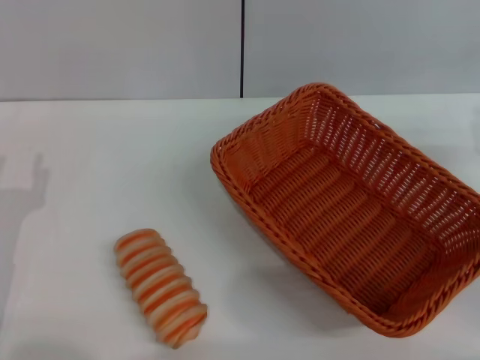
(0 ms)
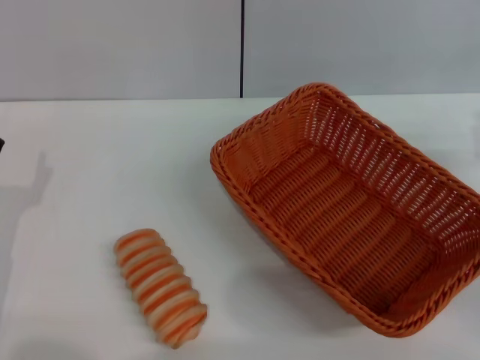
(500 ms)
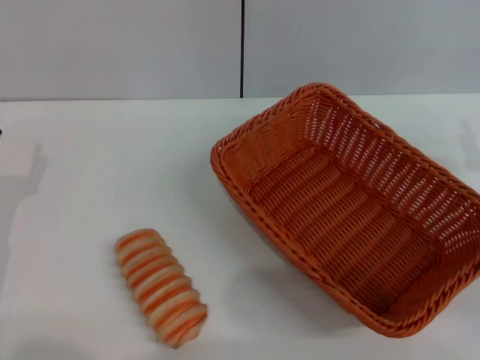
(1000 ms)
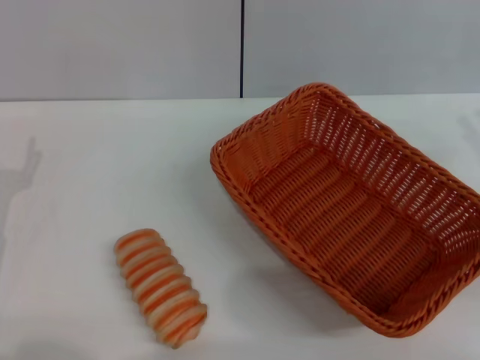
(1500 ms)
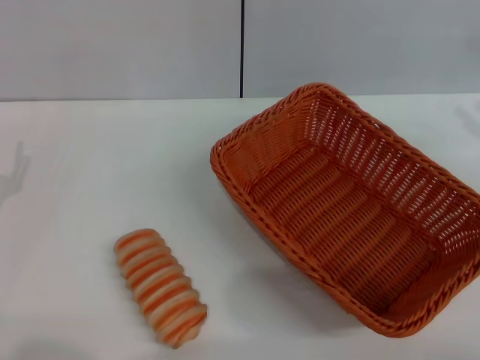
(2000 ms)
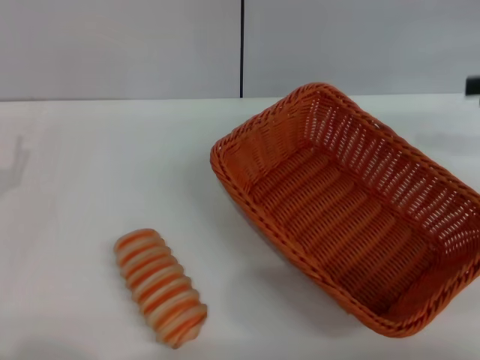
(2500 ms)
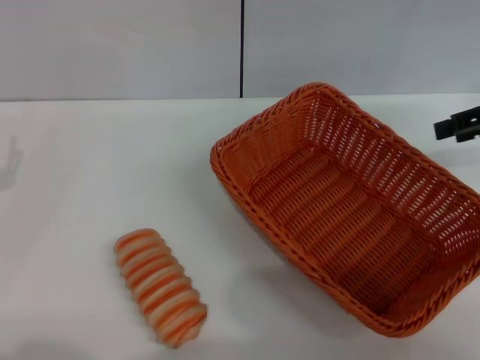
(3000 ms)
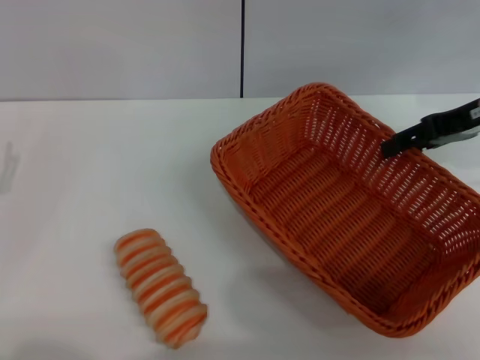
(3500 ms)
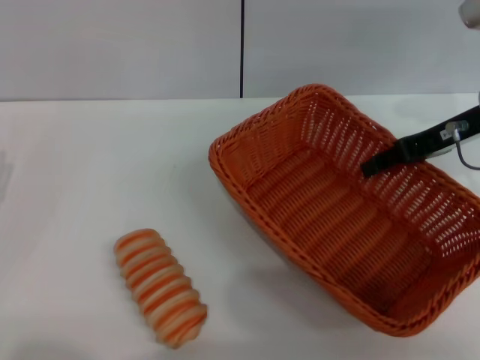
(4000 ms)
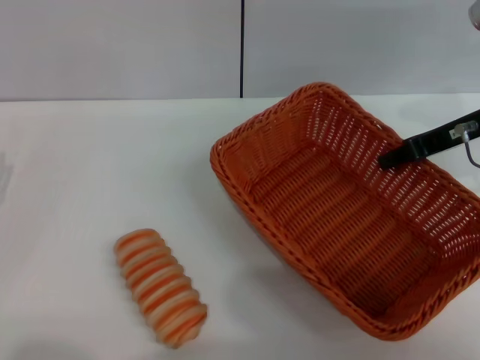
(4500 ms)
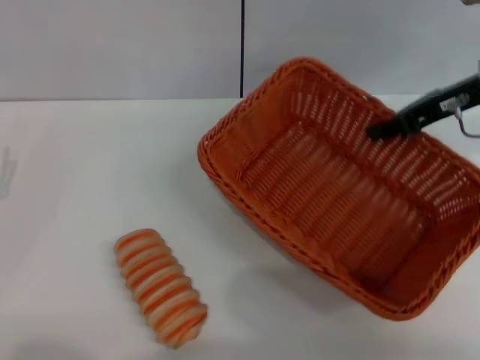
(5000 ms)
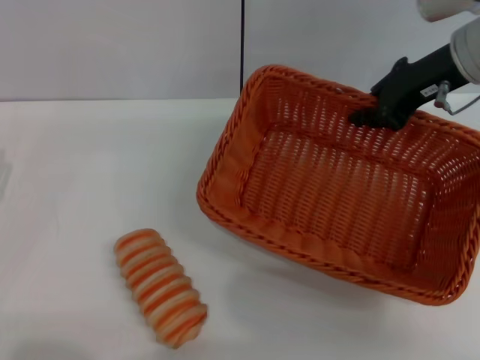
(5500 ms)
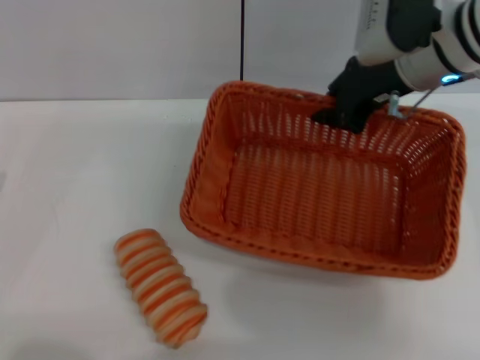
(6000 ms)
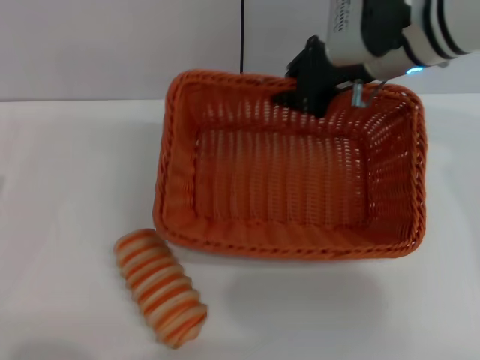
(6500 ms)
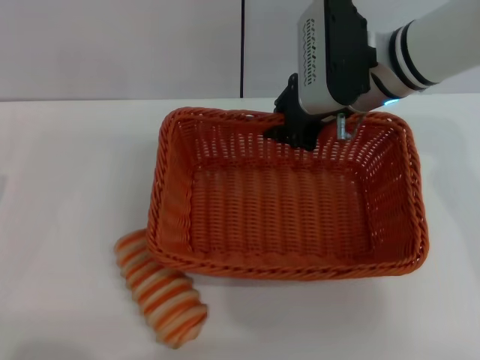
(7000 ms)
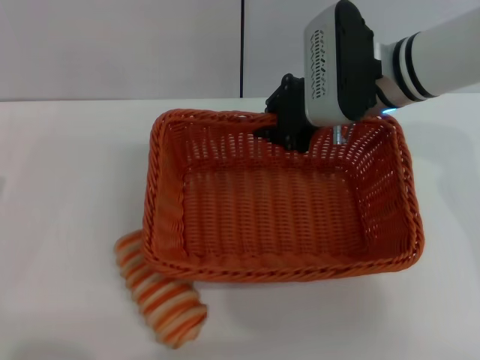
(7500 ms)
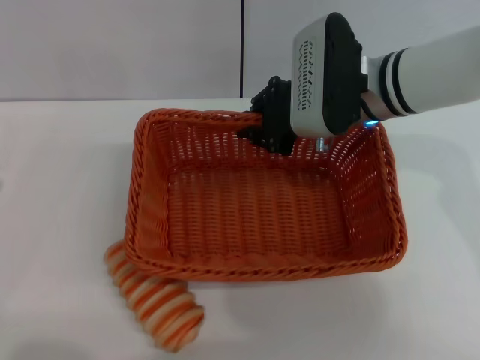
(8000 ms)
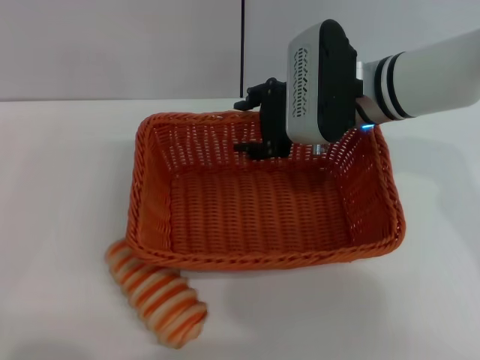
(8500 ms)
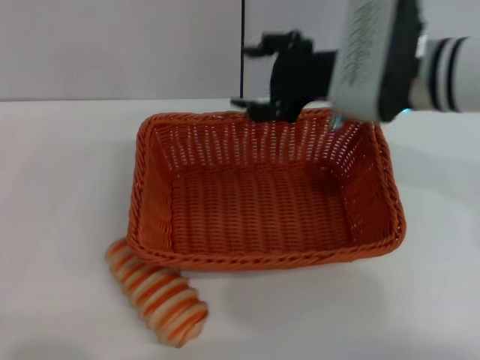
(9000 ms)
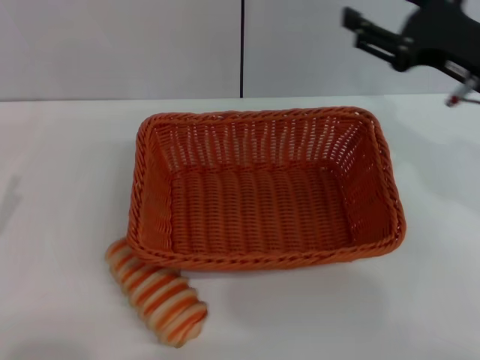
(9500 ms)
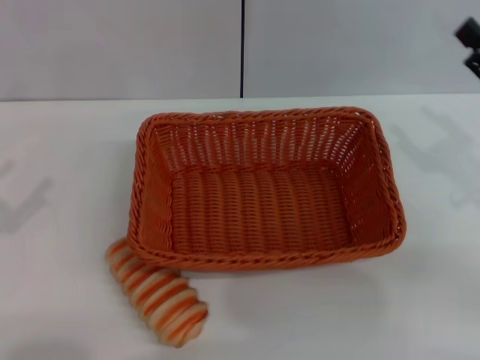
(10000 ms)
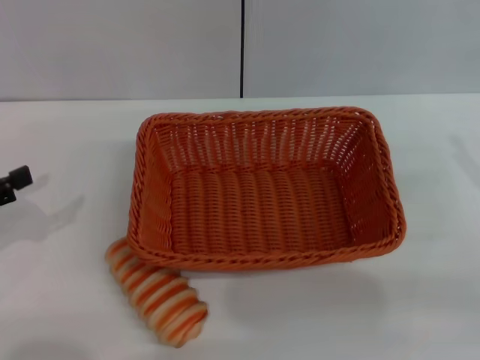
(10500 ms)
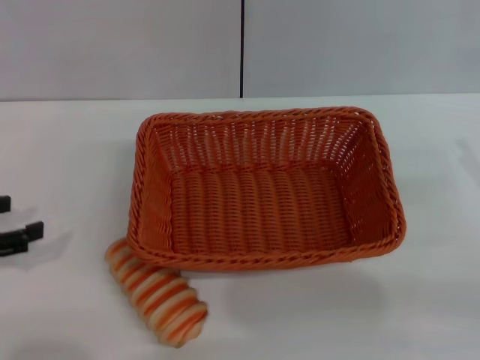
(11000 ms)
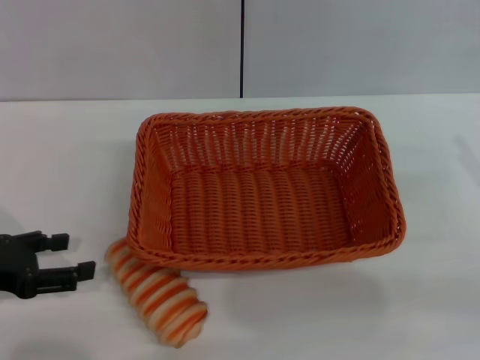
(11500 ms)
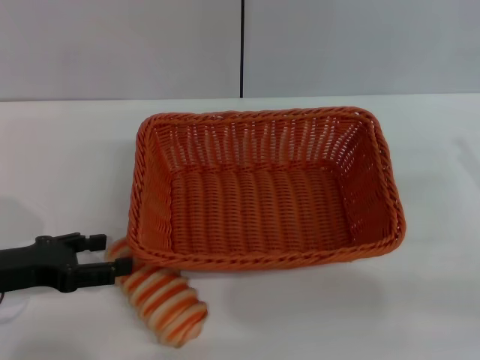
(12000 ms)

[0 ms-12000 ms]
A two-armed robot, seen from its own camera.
Step, 0 ms to 5000 ms: Pick up the light basket with the right gripper.
Step, 5500 ms to 8500 ms: Place the light basket in the center of view with the right gripper.
2000 ms to 4000 ms: The right gripper travels to the left and forward by some 15 cm.
4000 ms to 6000 ms: The right gripper goes about 10 cm to the left, and closes its fingers.
6000 ms to 8000 ms: The right gripper moves to the left, about 5 cm.
8000 ms to 10000 ms: The right gripper goes roughly 25 cm to the right and backward, and opens up. The left gripper moves upward and to the left, about 10 cm.
10000 ms to 12000 ms: The left gripper goes roughly 10 cm to the right, forward and downward.

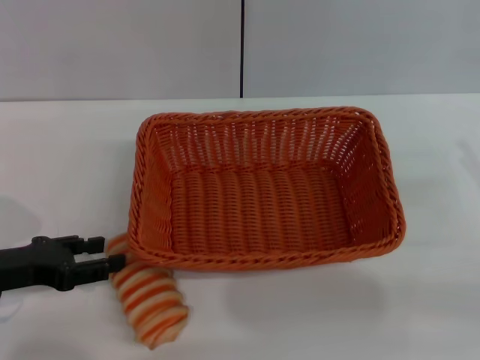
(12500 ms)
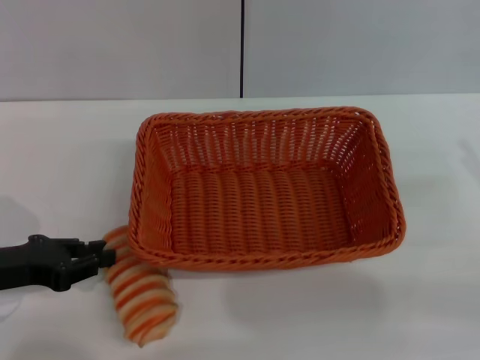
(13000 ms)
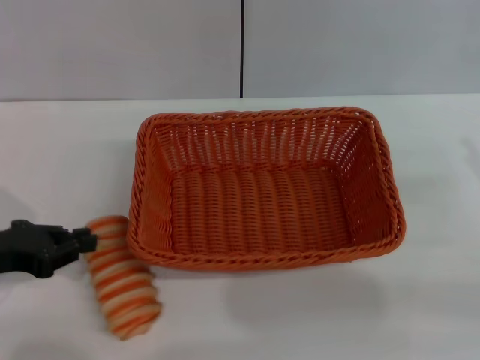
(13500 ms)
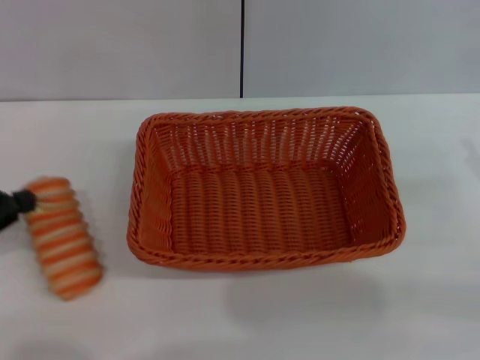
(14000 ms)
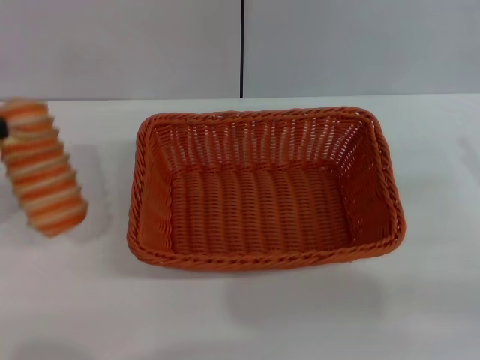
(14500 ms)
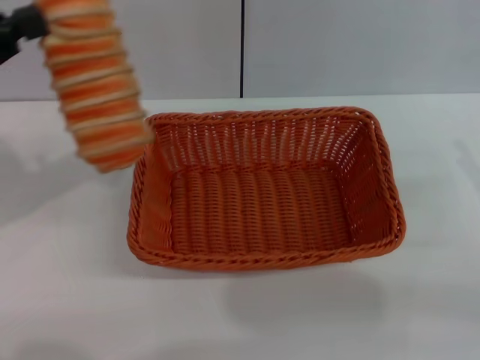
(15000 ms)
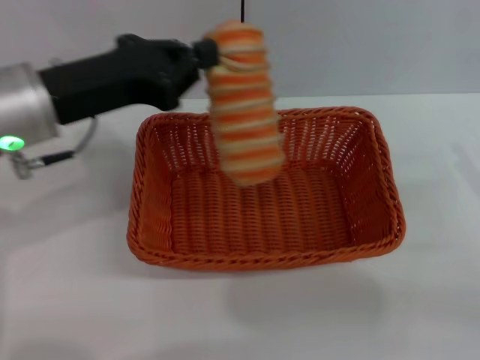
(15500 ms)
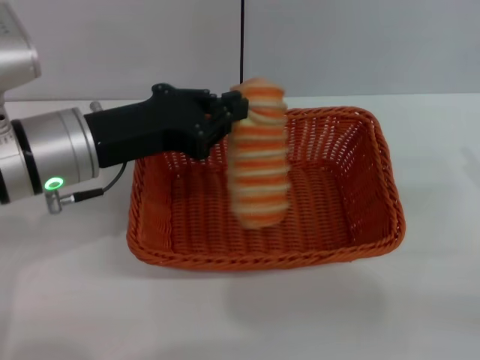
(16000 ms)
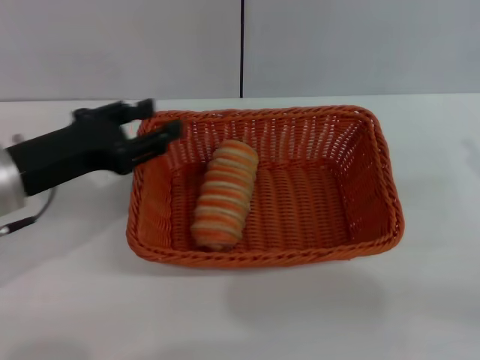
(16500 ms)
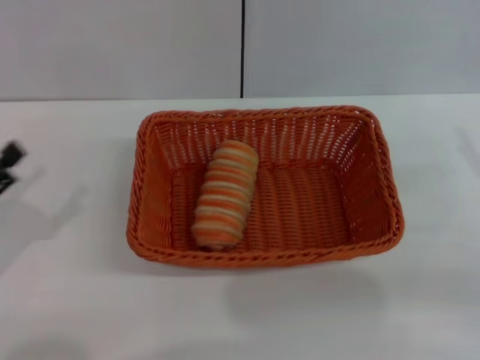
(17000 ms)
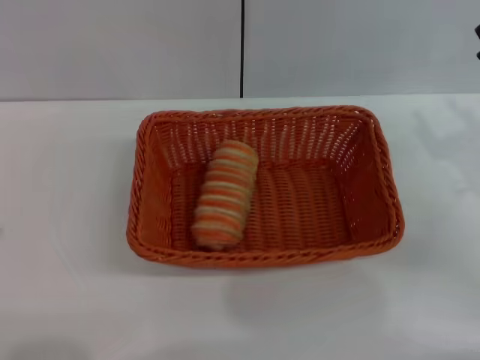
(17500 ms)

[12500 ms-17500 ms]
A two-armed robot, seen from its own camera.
Step, 14500 ms to 16000 ms: Place the long bread into the light basket with the left gripper.
12500 ms to 15000 ms: The left gripper travels upward by approximately 15 cm, and closes up.
15000 ms to 17500 ms: The right gripper goes about 5 cm forward. The left gripper shifts roughly 25 cm downward and backward, and opens up.

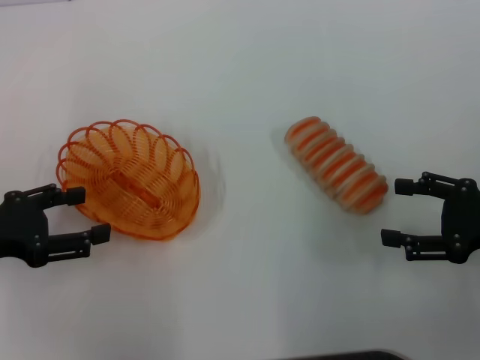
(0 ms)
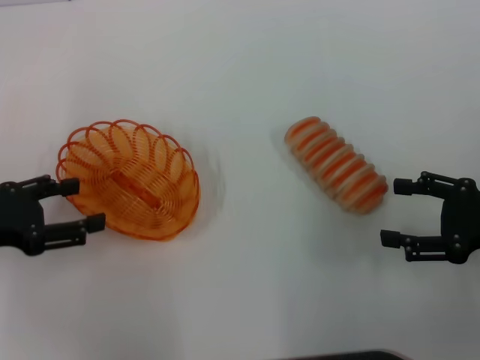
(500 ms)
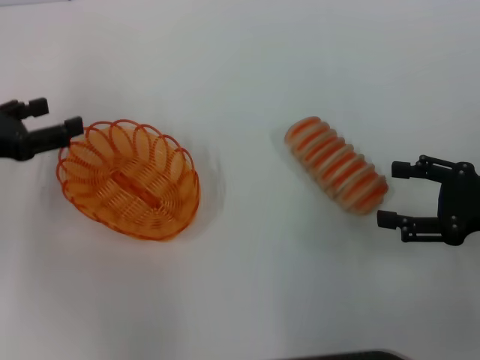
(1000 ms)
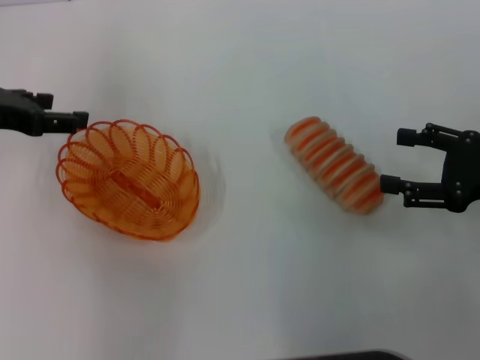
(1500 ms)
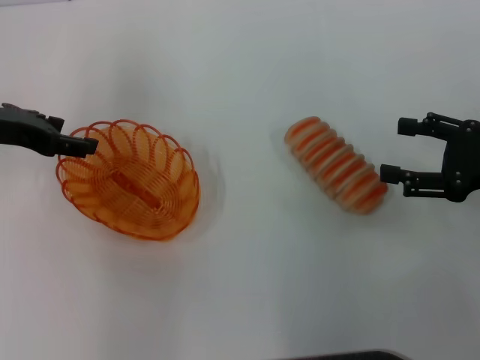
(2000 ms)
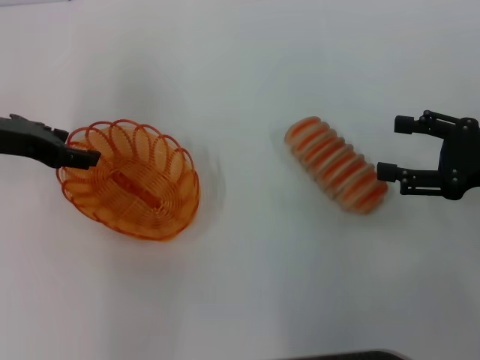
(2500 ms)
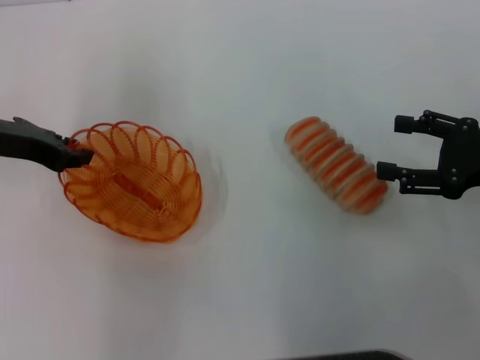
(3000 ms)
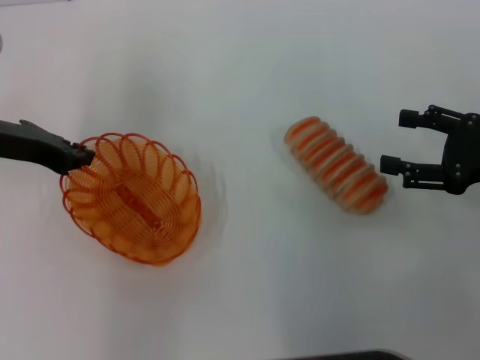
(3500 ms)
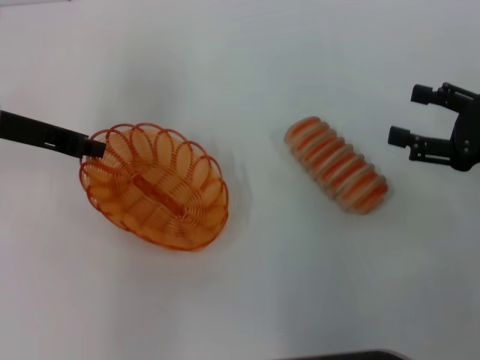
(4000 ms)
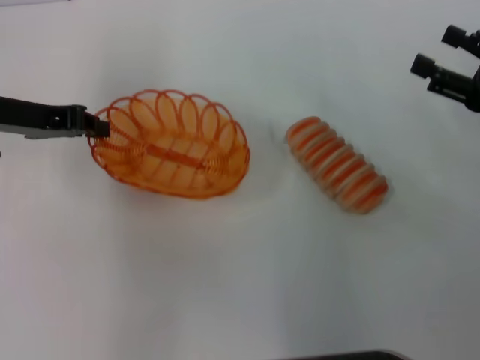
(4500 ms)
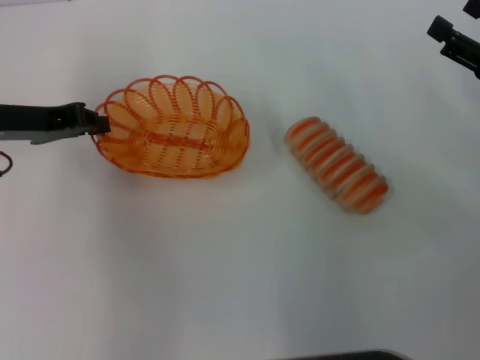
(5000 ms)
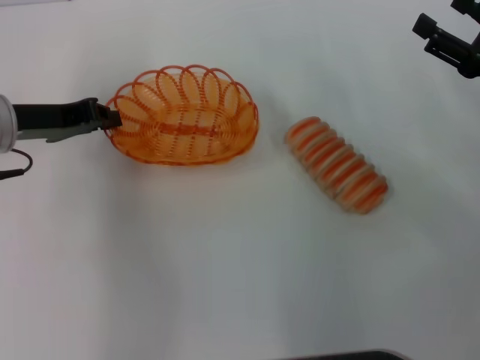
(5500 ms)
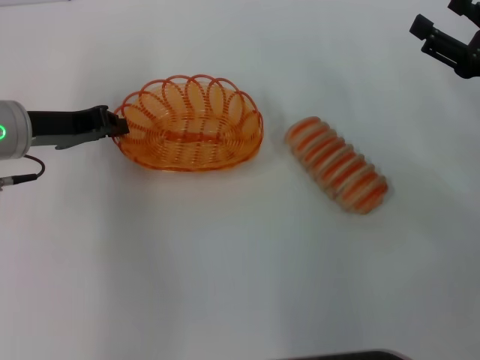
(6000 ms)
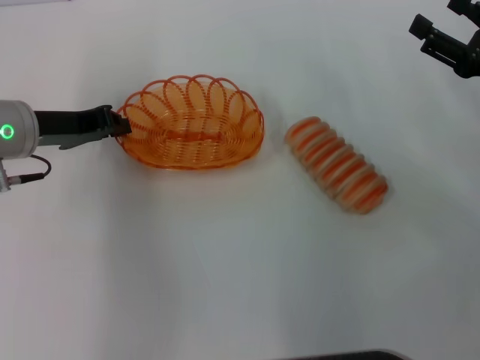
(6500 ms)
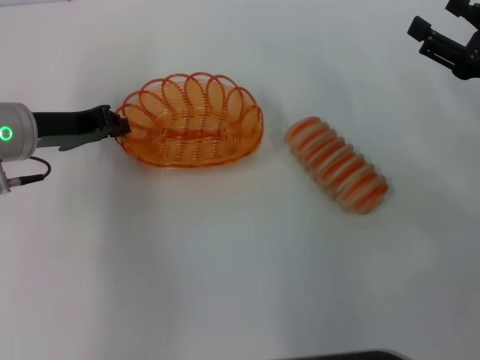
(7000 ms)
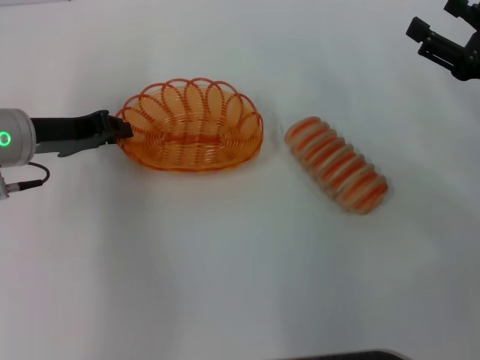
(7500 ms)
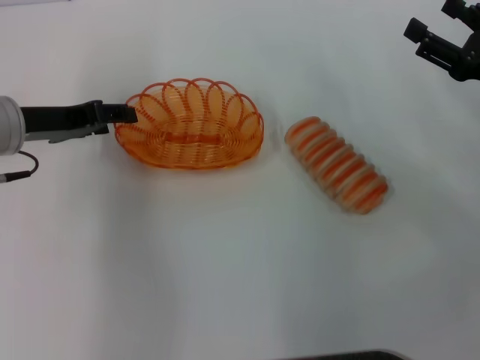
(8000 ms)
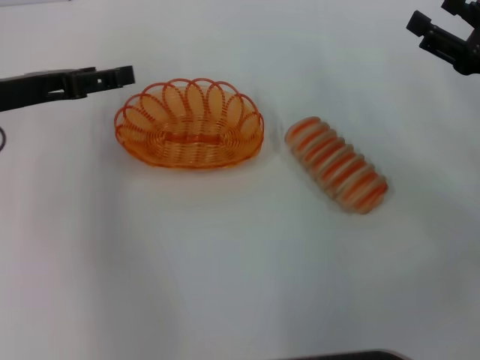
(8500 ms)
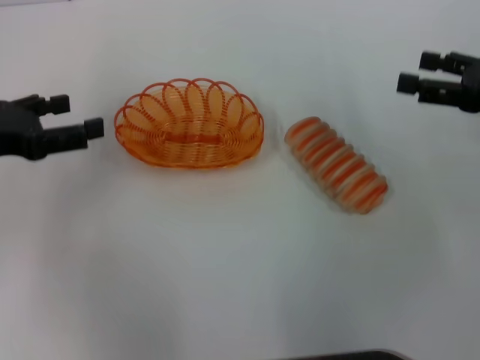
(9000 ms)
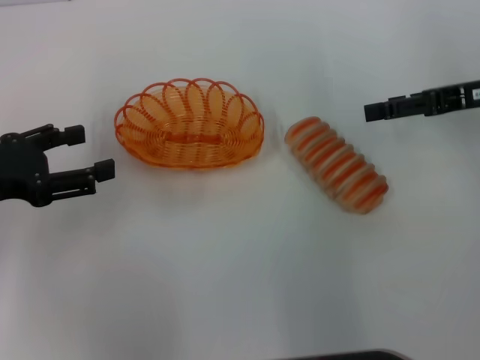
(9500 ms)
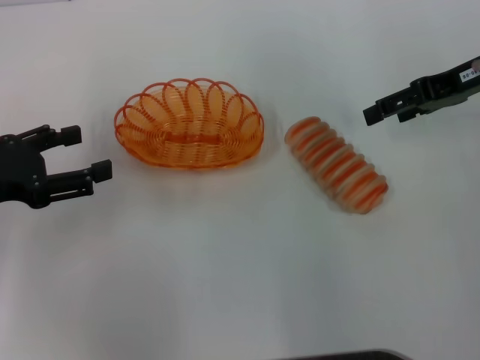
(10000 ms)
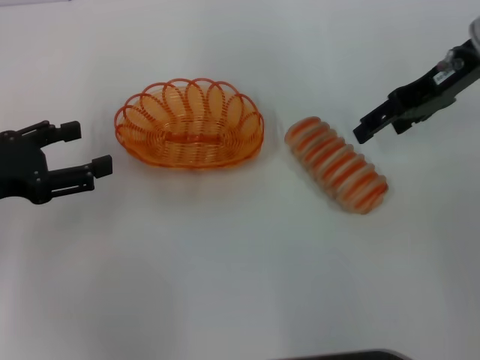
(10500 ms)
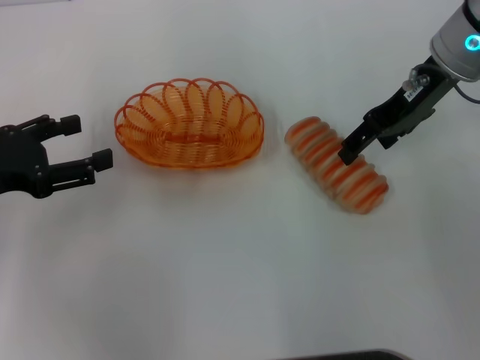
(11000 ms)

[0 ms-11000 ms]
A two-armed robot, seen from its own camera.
Step, 0 ms to 4000 ms: Pick up the basket with the left gripper.
Step, 4500 ms to 8000 ms: Place the basket in the center of view with the left gripper.
0 ms to 2000 ms: The left gripper travels forward and upward by some 10 cm.
2000 ms to 3500 ms: The left gripper closes its fingers.
5500 ms to 7500 ms: The grippers make only small movements.
7500 ms to 9000 ms: The left gripper is displaced to the left and backward by about 10 cm, and opens up.
9000 ms to 11000 ms: The right gripper heads to the left and forward, covering about 15 cm.
